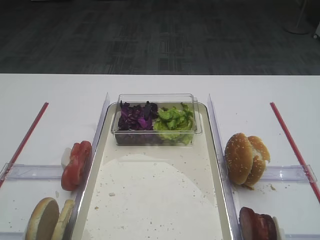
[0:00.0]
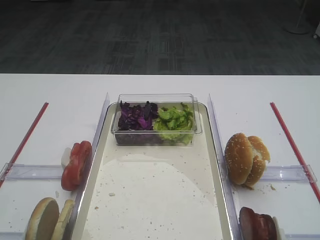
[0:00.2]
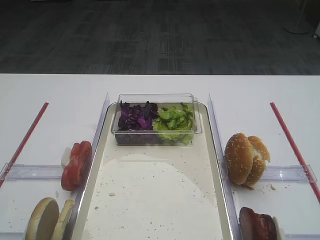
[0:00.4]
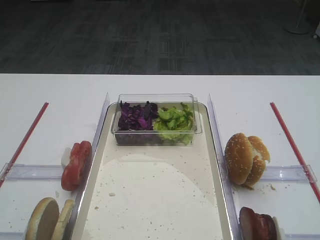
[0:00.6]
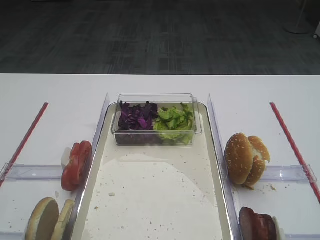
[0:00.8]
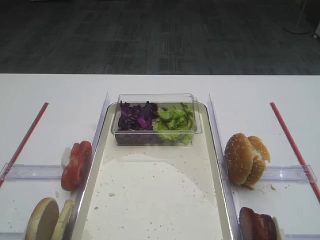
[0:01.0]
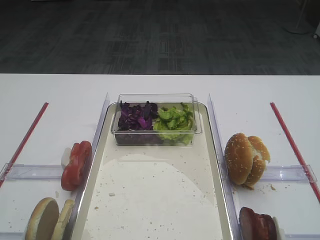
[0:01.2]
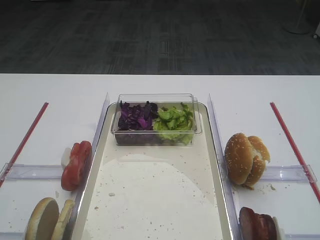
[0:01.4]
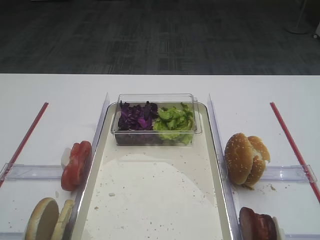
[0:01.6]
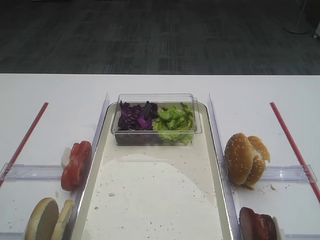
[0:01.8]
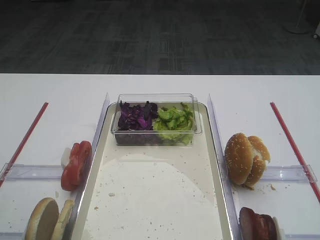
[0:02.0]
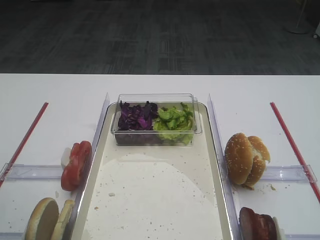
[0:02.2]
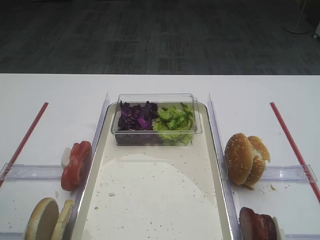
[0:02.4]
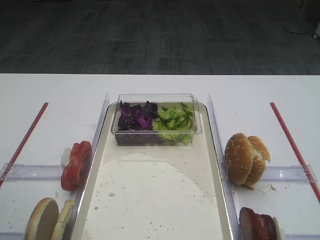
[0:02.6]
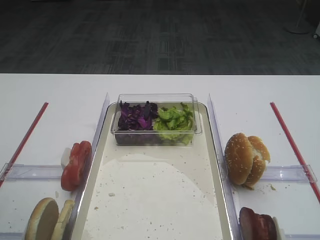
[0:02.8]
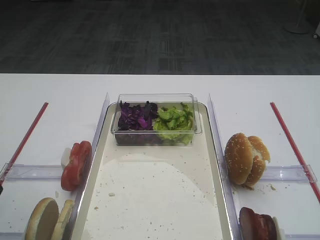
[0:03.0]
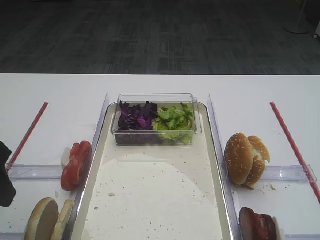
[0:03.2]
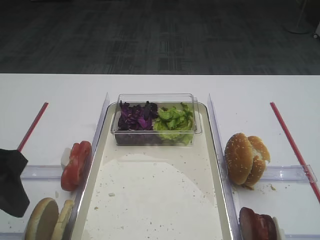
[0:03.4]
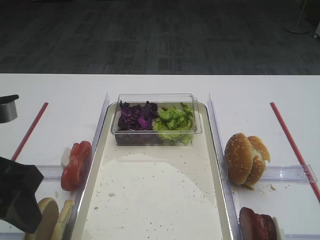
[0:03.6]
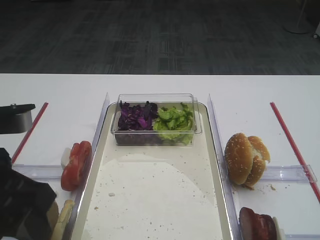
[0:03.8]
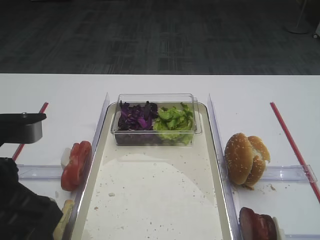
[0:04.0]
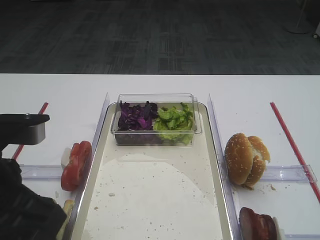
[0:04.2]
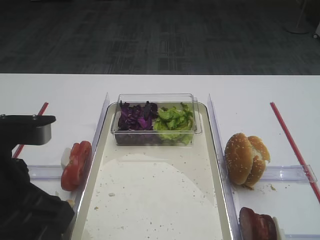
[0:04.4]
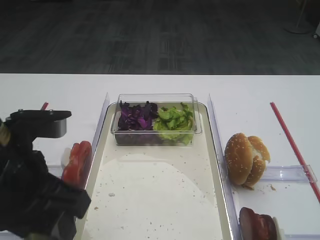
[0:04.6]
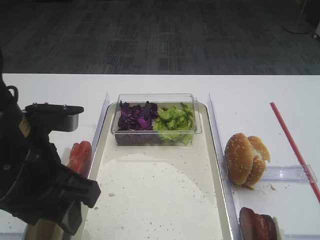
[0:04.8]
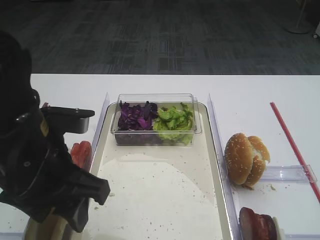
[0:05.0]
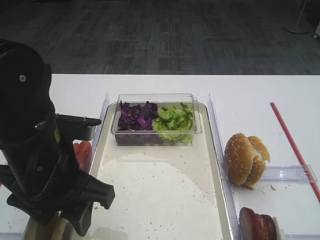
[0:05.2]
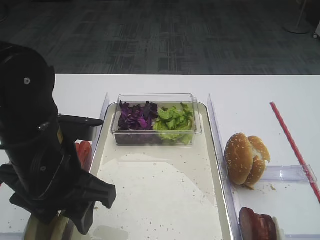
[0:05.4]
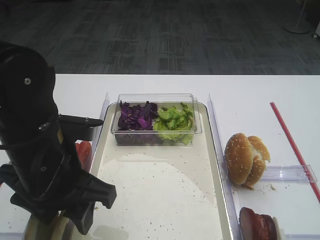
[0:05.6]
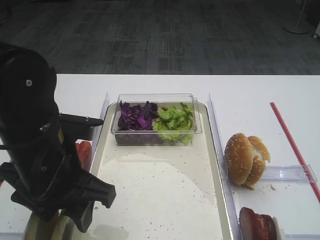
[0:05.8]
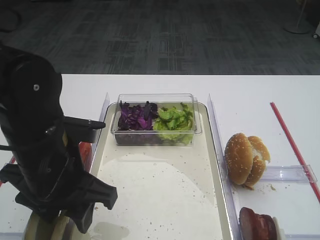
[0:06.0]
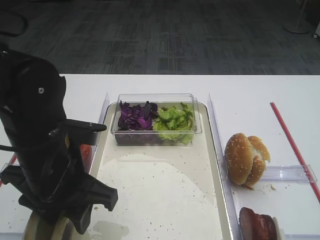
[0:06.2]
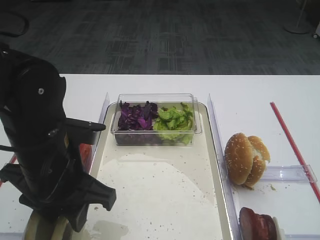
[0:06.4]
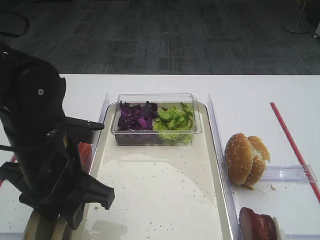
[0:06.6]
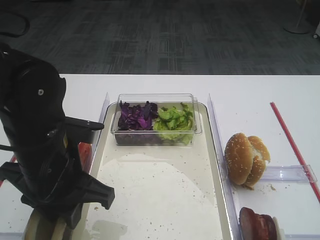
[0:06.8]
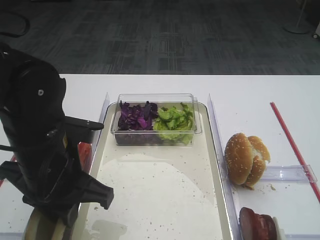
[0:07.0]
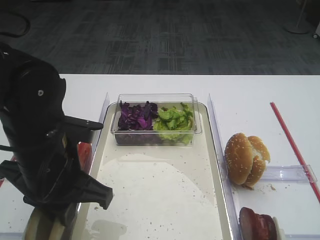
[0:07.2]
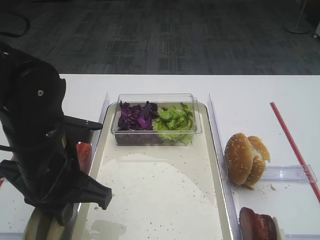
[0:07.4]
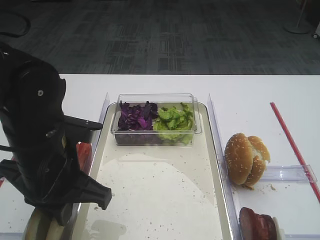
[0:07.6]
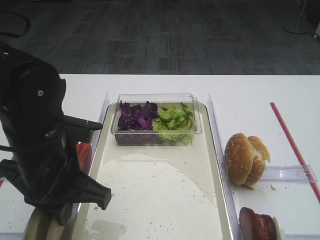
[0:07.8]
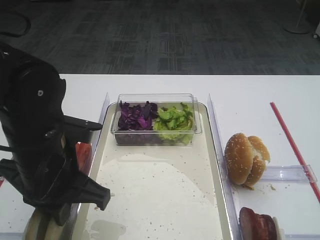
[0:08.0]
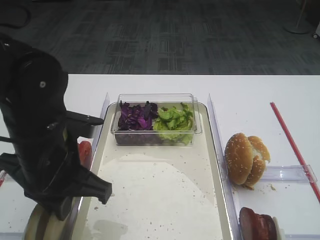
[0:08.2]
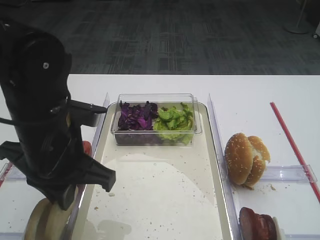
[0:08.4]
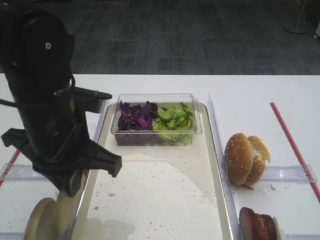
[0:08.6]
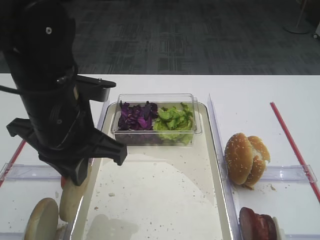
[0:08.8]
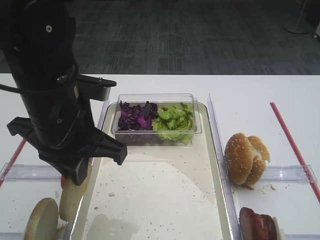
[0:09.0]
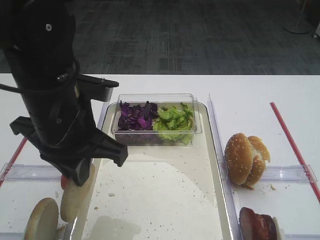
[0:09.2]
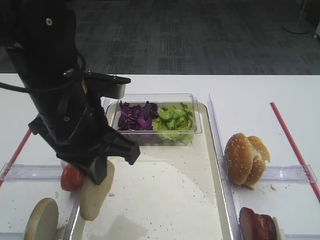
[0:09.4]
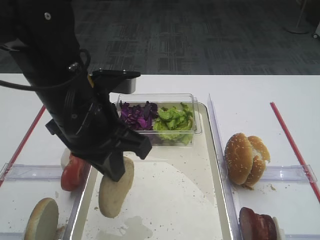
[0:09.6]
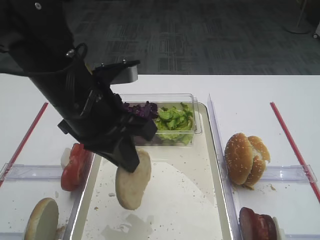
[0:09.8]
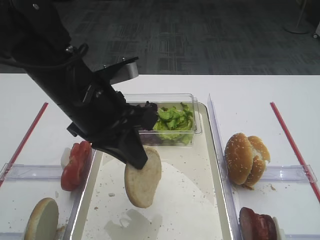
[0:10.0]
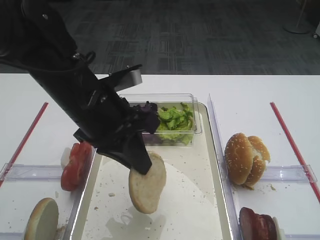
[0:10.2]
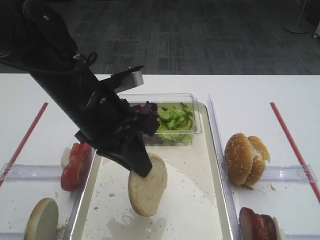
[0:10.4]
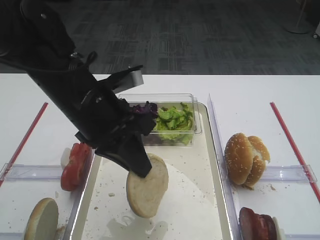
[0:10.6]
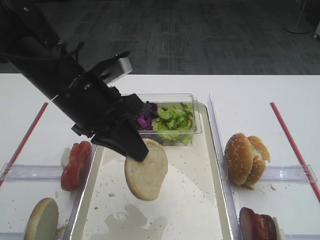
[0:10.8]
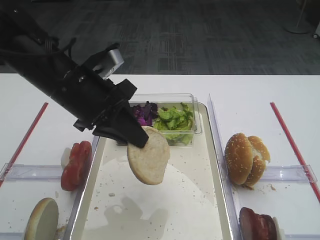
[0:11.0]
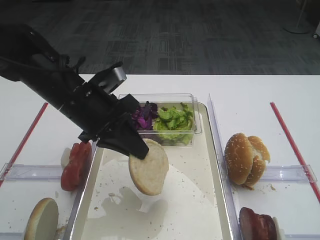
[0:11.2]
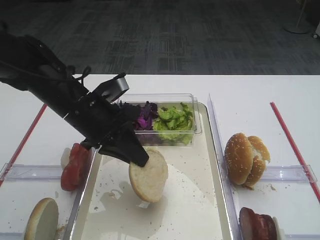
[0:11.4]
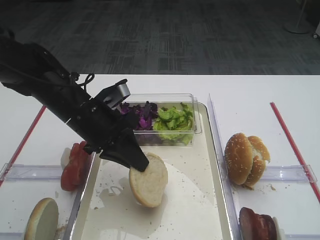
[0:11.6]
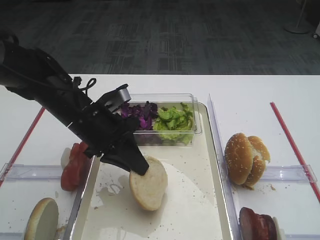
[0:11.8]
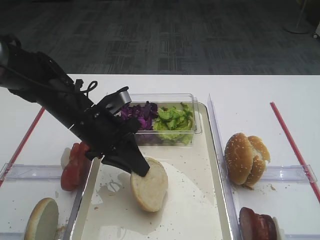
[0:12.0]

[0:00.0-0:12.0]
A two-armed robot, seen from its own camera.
Step, 0:00.0 to 0:08.6: Pick up the bread slice with the left gripper.
0:03.0 to 0:04.4: The left gripper heads to the right, covering about 10 cm.
0:04.4 to 0:06.0: The left gripper travels forward and downward by about 10 cm.
0:06.0 to 0:07.6: The left gripper closes up.
0:07.6 to 0:09.0: The left gripper is displaced upward by about 5 cm.
0:10.4 to 0:12.0: The left gripper travels downward by approximately 10 cm.

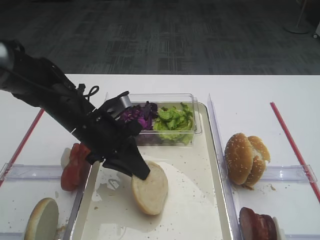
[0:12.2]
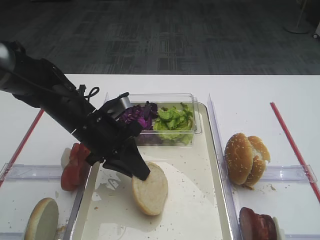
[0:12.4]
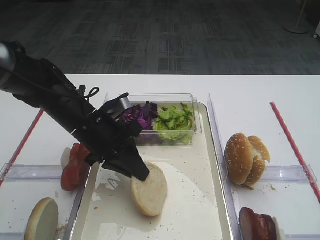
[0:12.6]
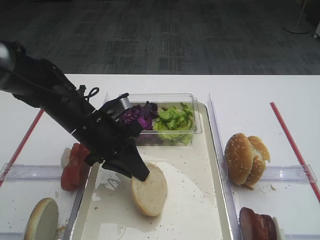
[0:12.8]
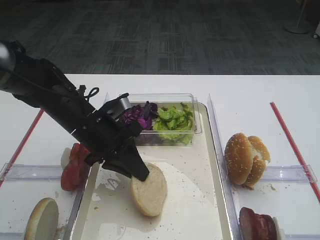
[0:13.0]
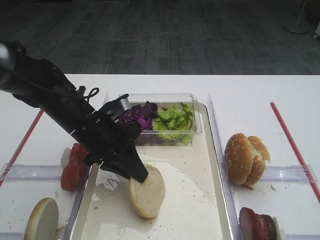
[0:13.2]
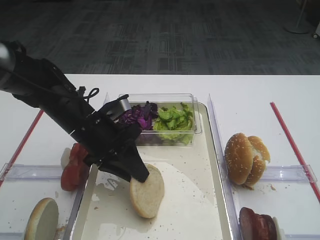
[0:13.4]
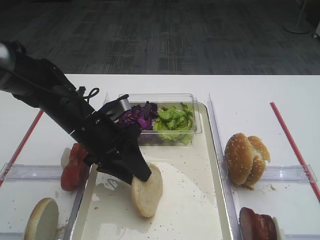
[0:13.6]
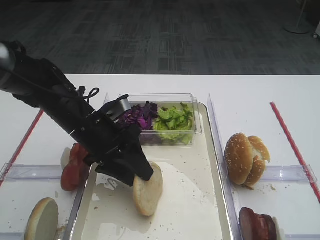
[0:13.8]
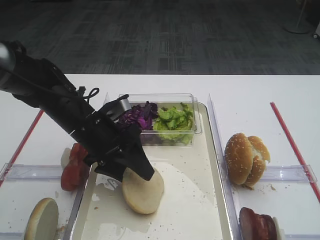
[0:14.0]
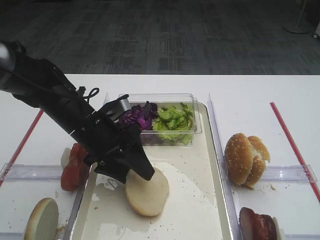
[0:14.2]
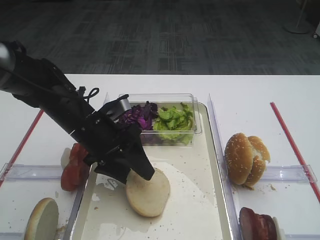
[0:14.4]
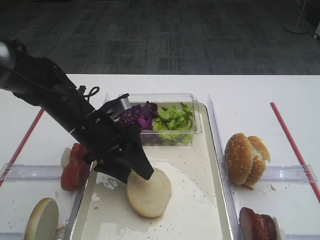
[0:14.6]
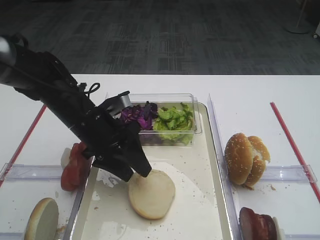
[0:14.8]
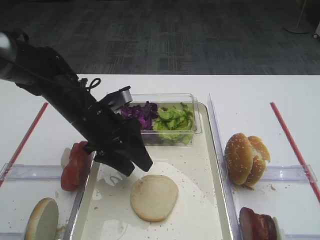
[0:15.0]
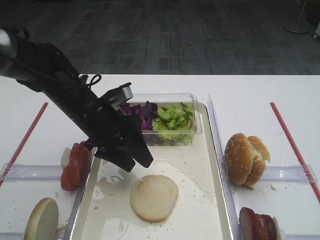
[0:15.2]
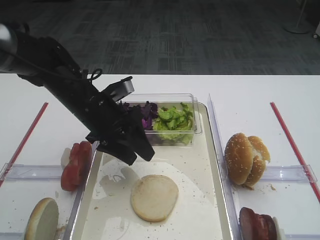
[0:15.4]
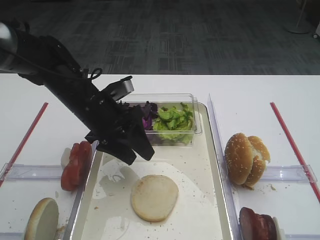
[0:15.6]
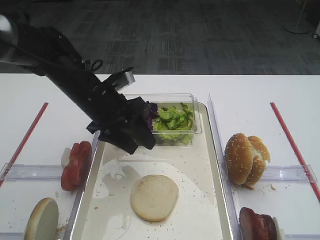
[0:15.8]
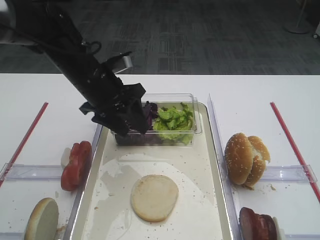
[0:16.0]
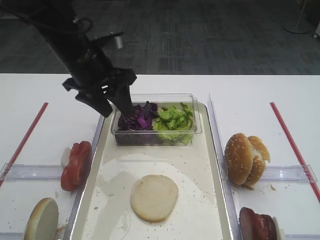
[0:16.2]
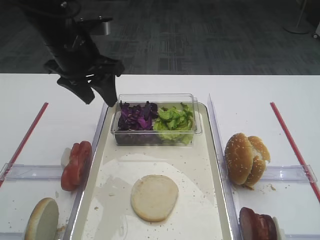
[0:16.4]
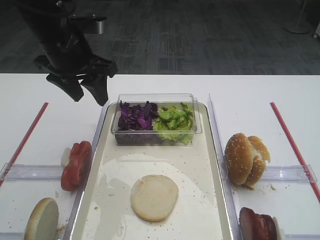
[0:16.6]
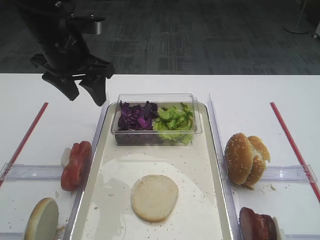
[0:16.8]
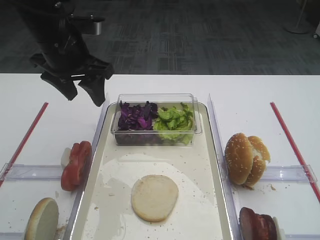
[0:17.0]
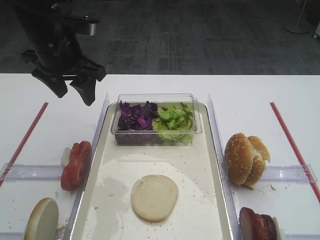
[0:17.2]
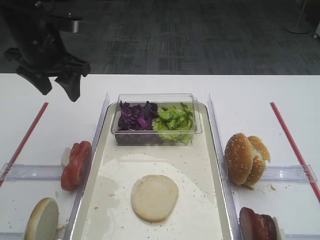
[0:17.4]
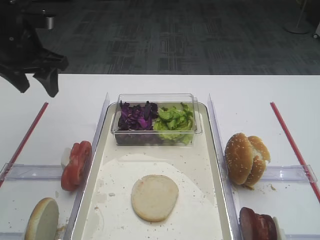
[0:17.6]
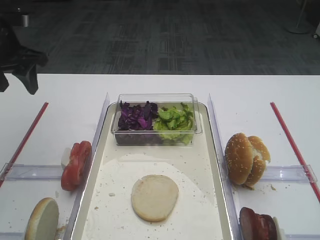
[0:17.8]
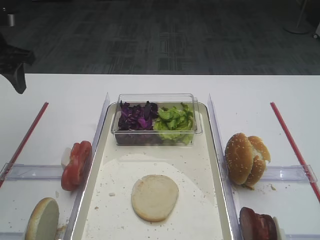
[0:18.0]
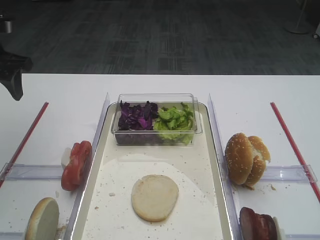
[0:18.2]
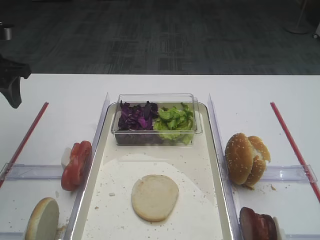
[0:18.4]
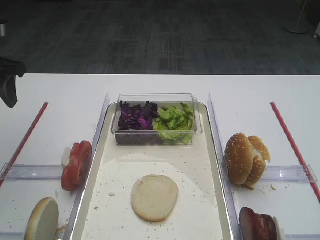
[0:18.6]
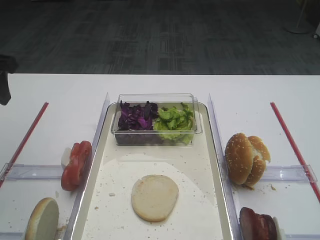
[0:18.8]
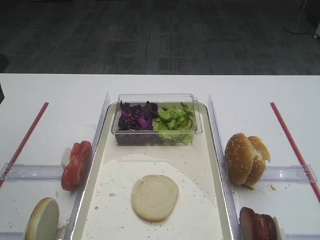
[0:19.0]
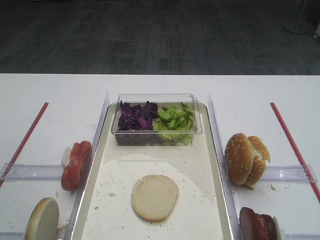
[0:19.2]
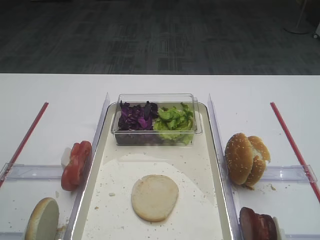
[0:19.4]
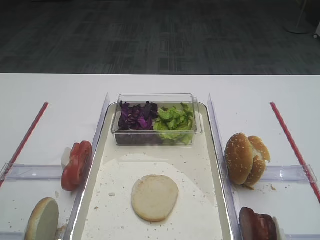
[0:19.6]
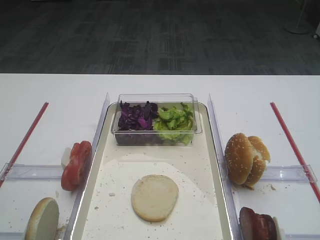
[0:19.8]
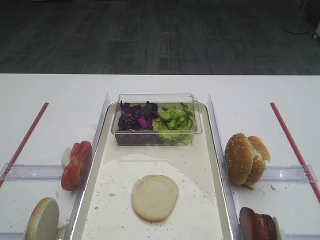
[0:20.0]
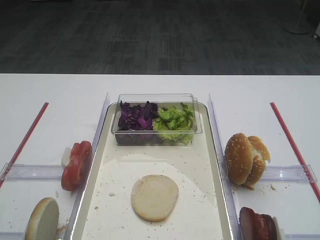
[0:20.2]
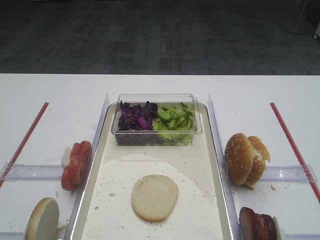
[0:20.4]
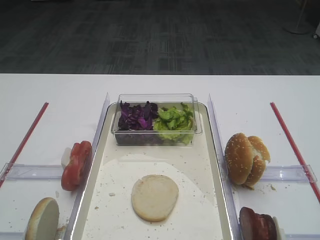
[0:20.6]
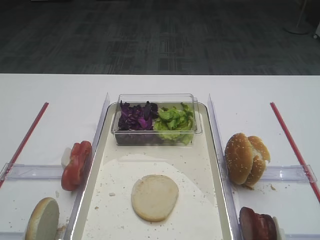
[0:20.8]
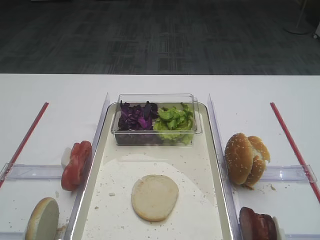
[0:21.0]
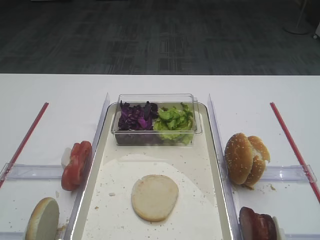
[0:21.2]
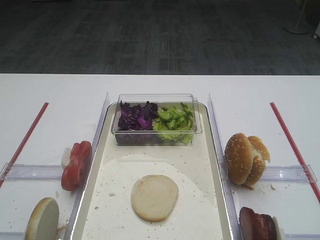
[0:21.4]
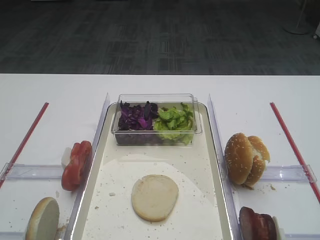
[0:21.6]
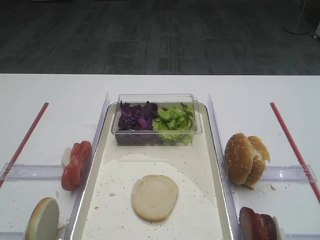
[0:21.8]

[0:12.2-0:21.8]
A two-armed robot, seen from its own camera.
Step, 0:12.2 to 0:15.8: Place the bread slice on the tray with the left gripper.
0:12.2 to 0:13.8: The left gripper opens.
0:13.8 to 0:15.4: The grippers move only a little.
0:15.4 to 0:17.0: The left gripper moves upward, roughly 10 cm.
0:17.0 to 0:18.6: The left gripper is displaced to the left by approximately 15 cm.
0:18.6 to 0:20.2: The left gripper travels backward by some 30 cm.

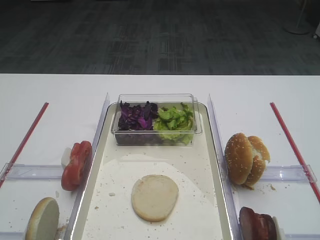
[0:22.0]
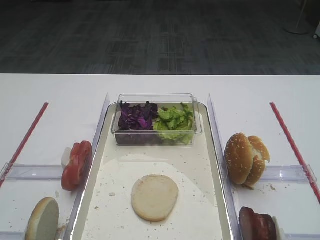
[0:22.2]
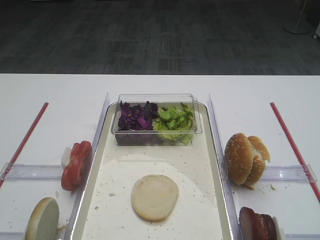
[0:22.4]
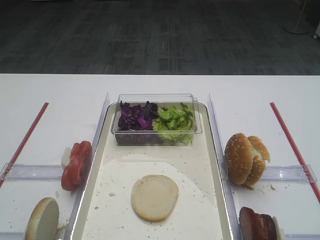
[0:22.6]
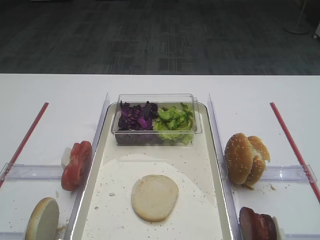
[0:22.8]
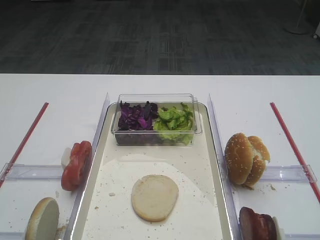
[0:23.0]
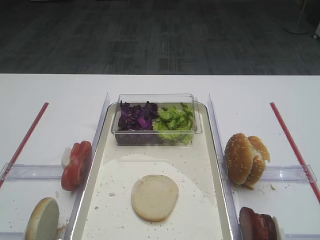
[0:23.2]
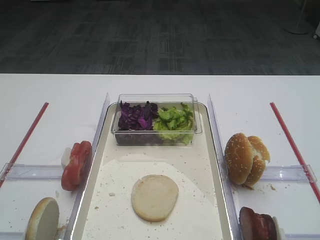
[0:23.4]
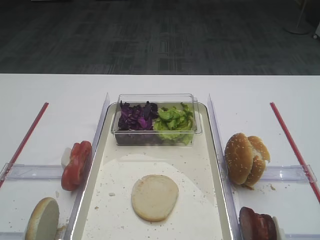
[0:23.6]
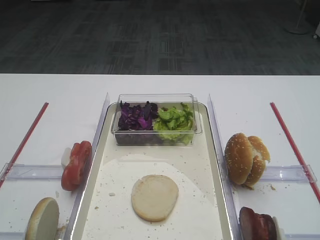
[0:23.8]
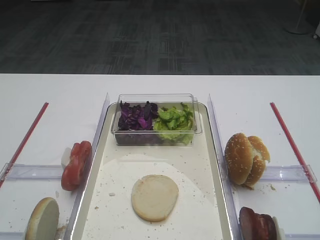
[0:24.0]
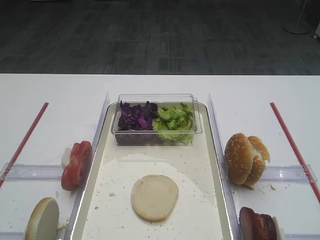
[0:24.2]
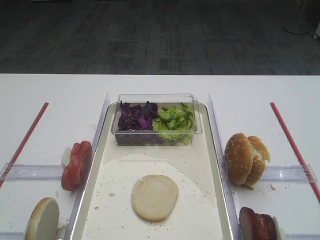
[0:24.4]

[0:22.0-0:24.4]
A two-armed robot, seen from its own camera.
0:22.0 to 0:24.4: Neither gripper changes place.
